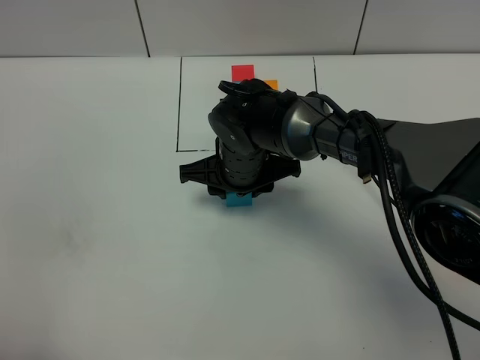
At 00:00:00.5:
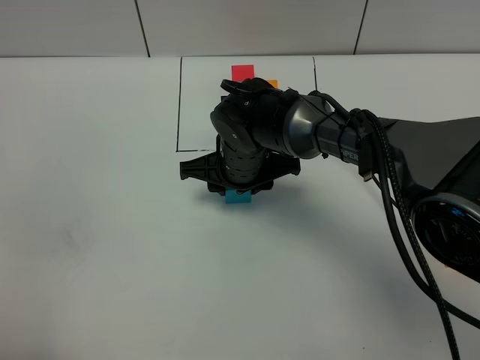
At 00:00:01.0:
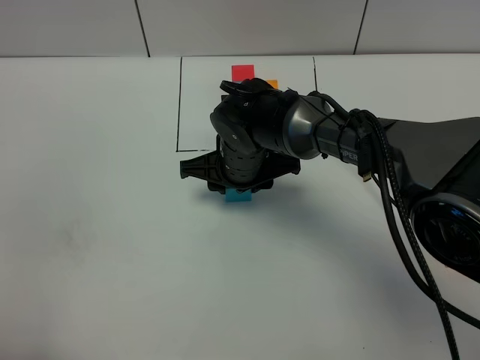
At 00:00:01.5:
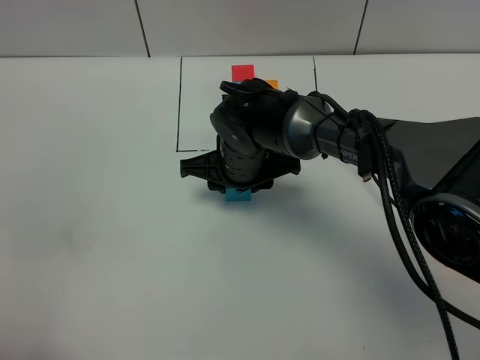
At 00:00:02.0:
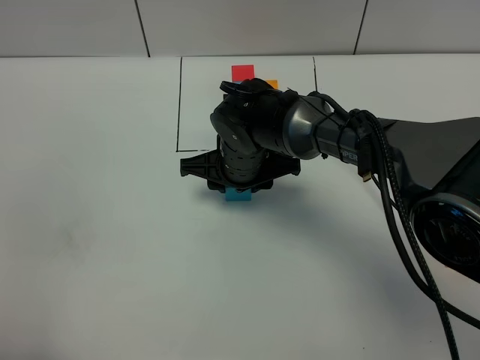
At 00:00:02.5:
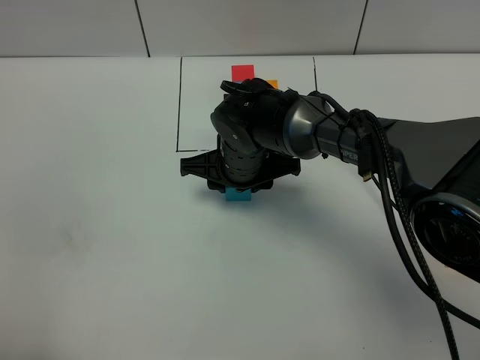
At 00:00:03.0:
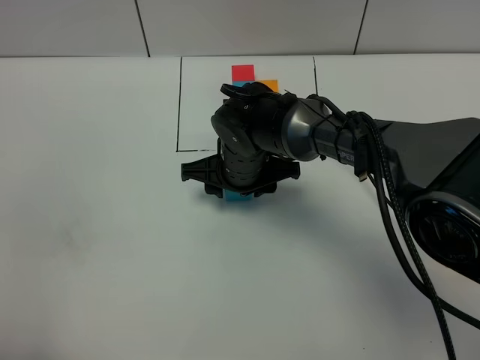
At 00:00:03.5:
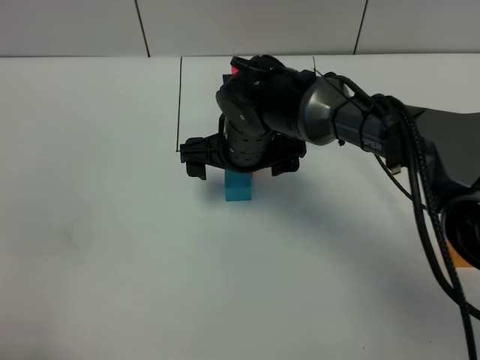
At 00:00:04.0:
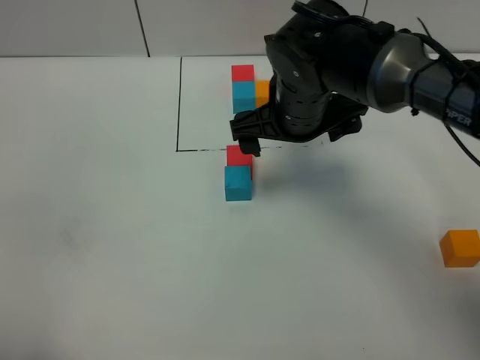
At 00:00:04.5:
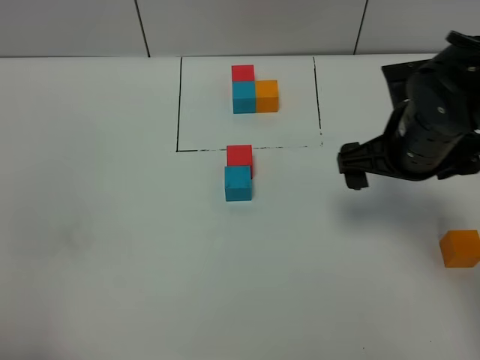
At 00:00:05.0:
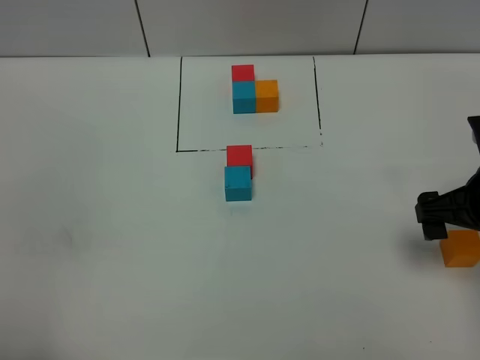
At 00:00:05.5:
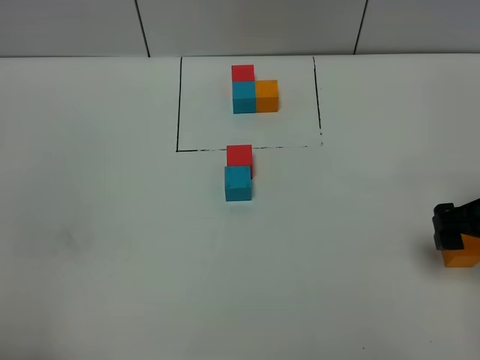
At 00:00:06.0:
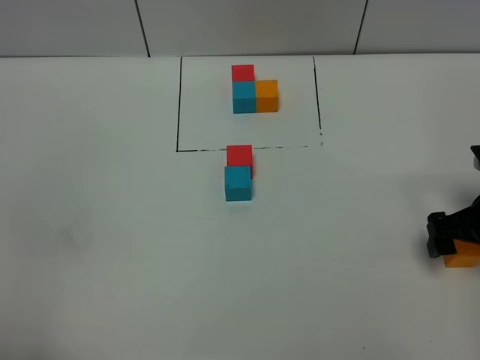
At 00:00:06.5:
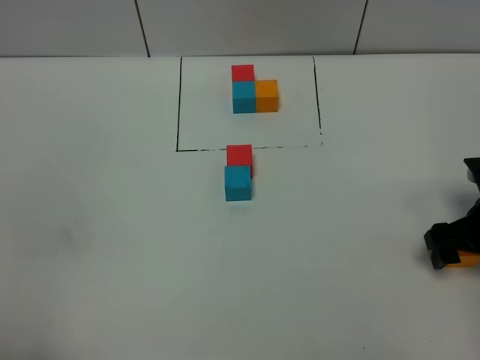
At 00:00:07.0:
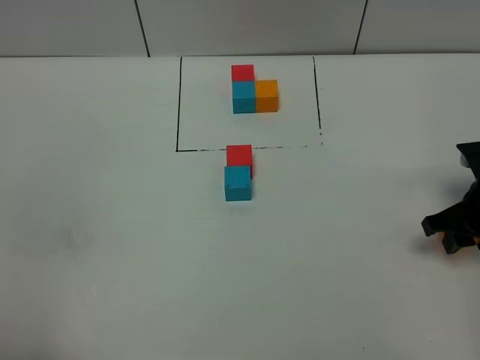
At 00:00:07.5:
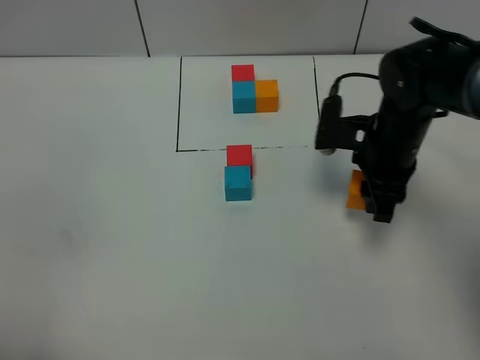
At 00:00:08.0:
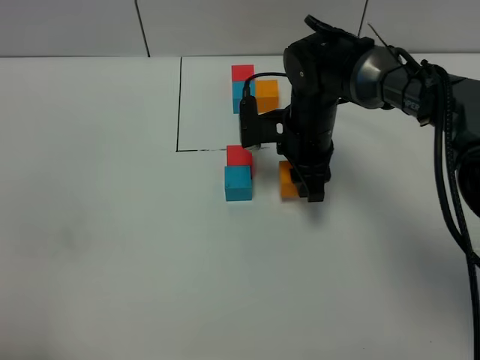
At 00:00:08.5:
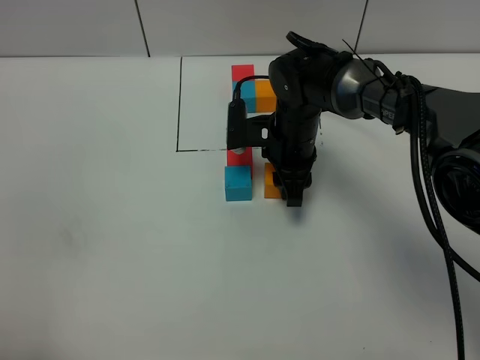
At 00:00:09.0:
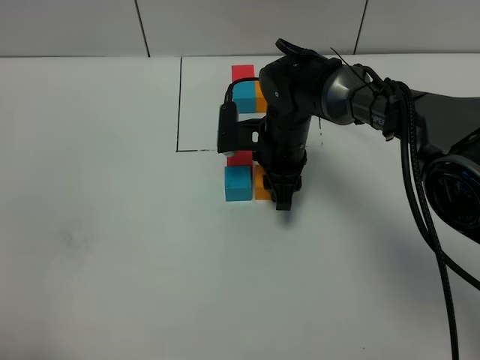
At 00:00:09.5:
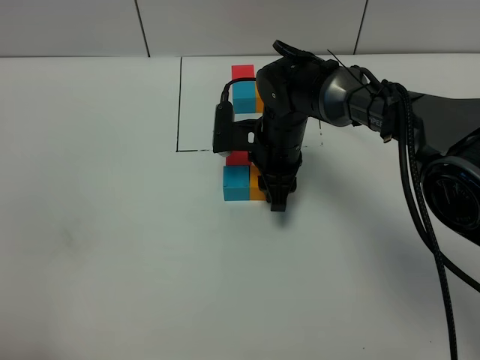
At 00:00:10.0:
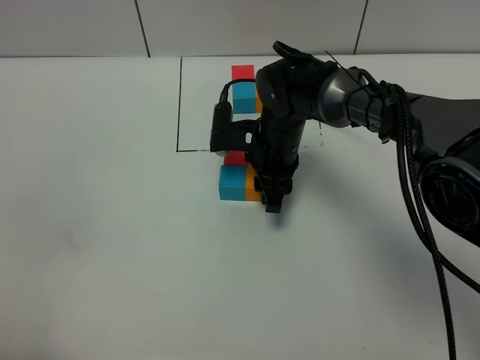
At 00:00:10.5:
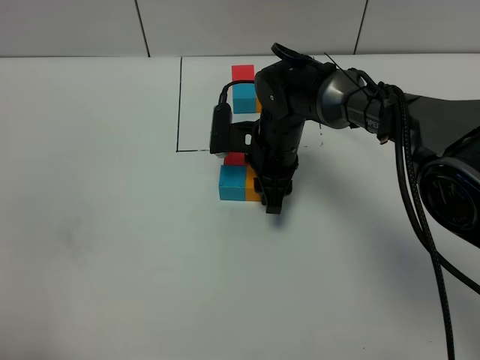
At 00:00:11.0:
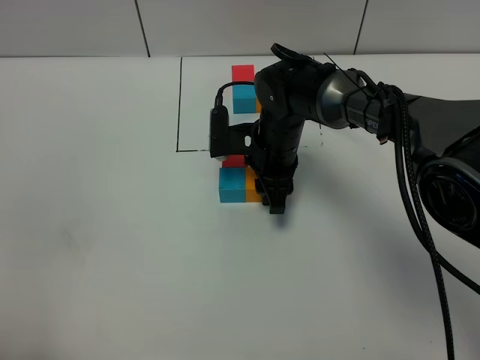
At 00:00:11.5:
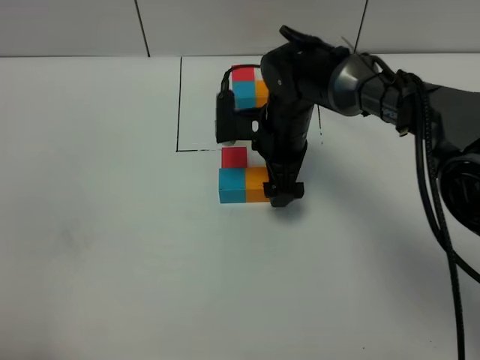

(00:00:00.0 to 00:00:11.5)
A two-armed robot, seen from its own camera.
Task of the whole recording: According to the building block template in front, assemble the scattered blocks together.
Step, 00:00:00.0 - 00:00:02.5: Put the blue build block on the behind of the red build block.
Step, 00:00:03.0 - 00:00:10.5: Put the orange build block on the right of the blue build block.
00:00:00.0 - 00:00:02.0: The two grippers keep their place.
00:00:02.0 - 00:00:04.0: The right gripper travels upward and to the right by some 10 cm, and opens its fingers.
00:00:04.0 - 00:00:06.0: The right gripper heads to the right, covering about 25 cm.
00:00:06.0 - 00:00:07.5: The right gripper goes some 15 cm to the left and forward, and closes.
00:00:07.5 - 00:00:09.5: The right gripper travels to the left and downward by some 15 cm.
00:00:09.5 - 00:00:11.5: The right gripper opens.

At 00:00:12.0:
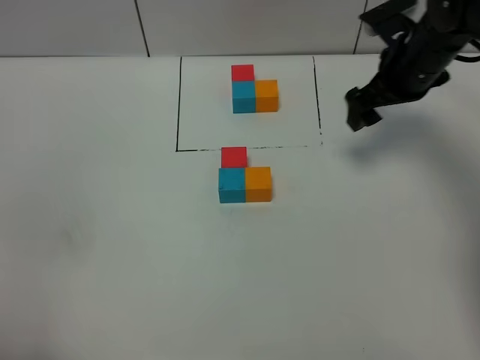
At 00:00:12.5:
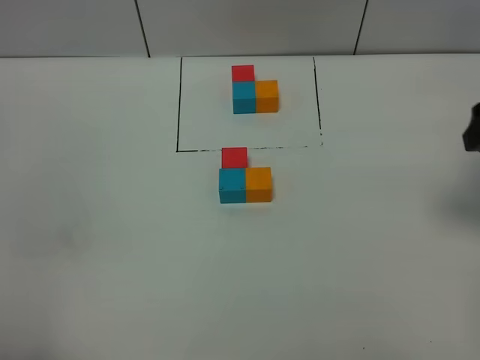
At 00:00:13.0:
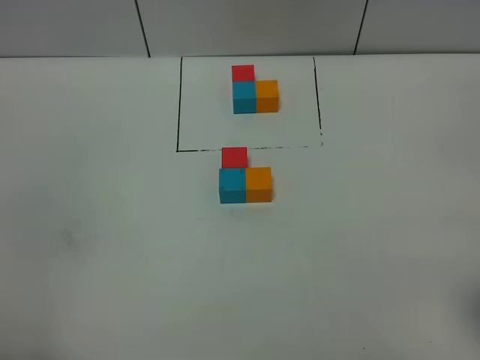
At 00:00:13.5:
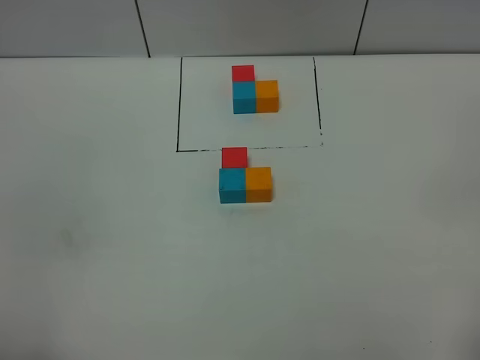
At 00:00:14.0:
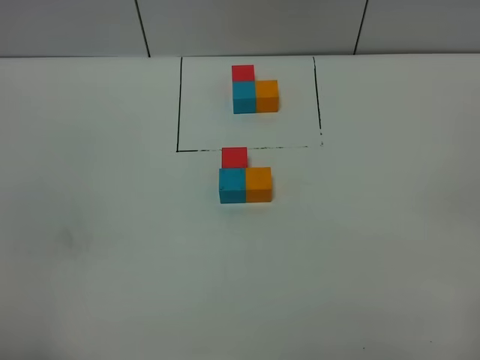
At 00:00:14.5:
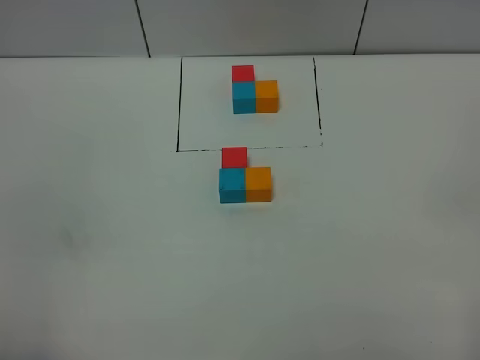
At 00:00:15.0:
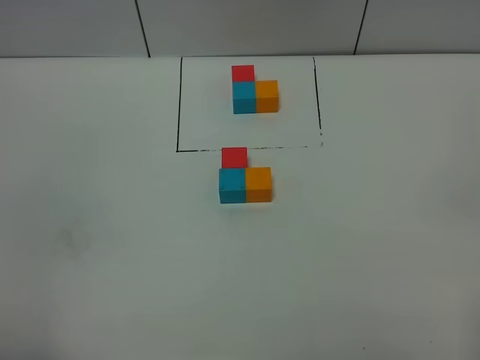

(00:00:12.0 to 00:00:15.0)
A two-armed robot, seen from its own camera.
Task of the whole recording: According to the building block template in front, assemble the scattered blocks together.
00:00:12.0 - 00:00:13.5: The right gripper travels backward by some 40 cm.
